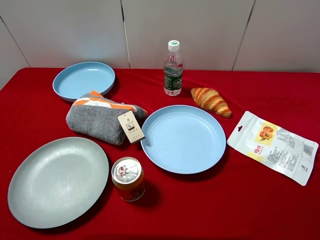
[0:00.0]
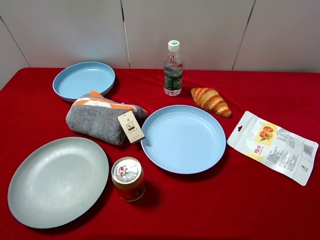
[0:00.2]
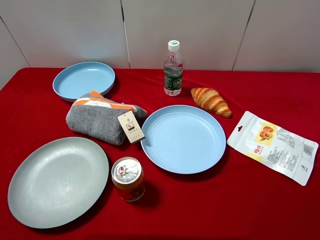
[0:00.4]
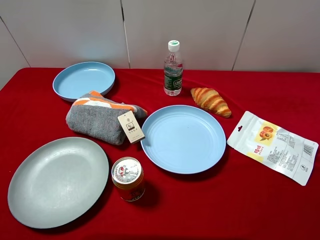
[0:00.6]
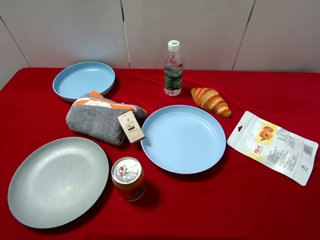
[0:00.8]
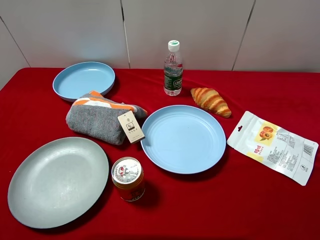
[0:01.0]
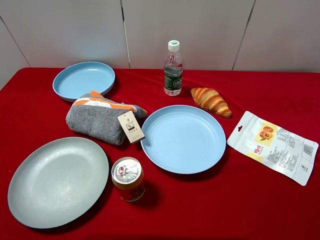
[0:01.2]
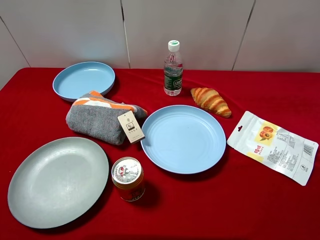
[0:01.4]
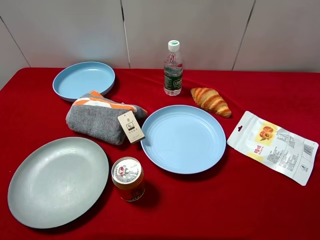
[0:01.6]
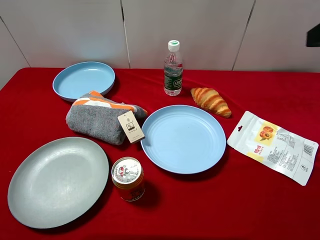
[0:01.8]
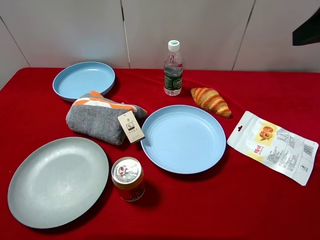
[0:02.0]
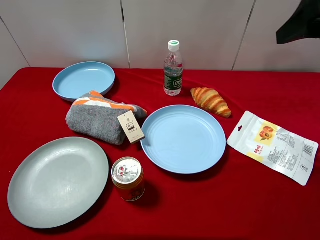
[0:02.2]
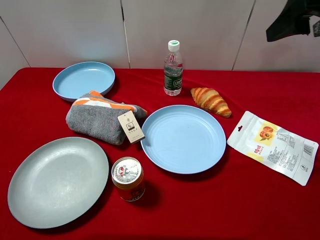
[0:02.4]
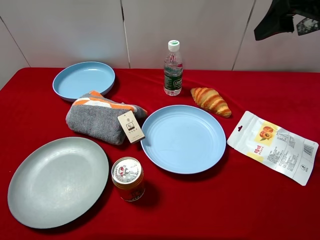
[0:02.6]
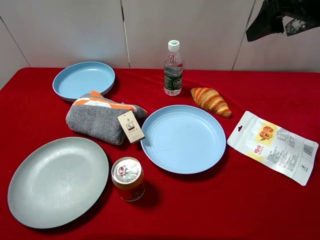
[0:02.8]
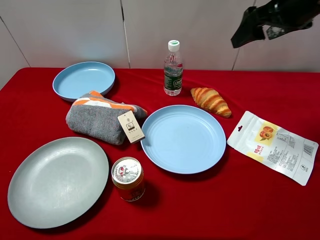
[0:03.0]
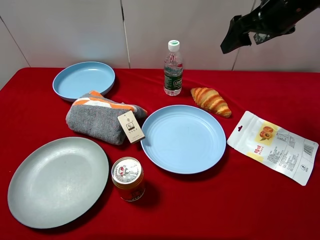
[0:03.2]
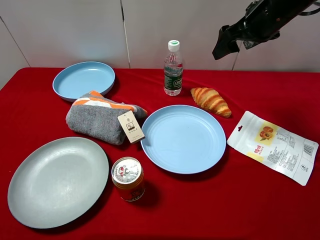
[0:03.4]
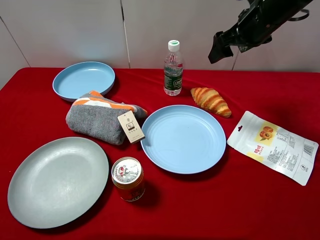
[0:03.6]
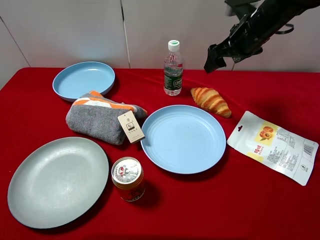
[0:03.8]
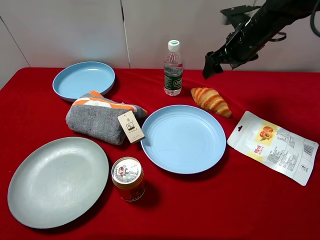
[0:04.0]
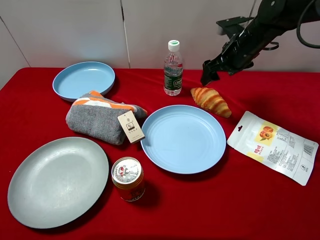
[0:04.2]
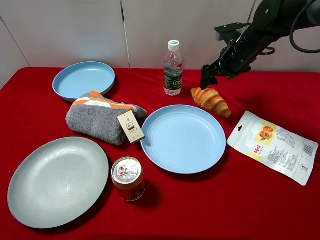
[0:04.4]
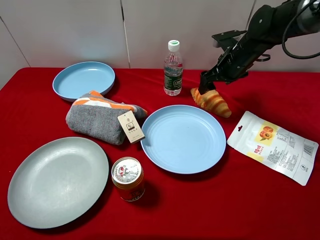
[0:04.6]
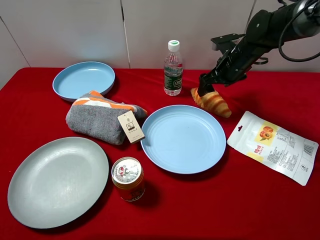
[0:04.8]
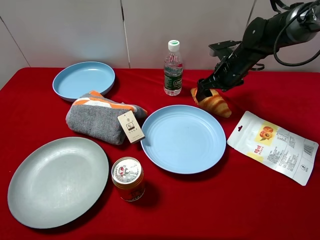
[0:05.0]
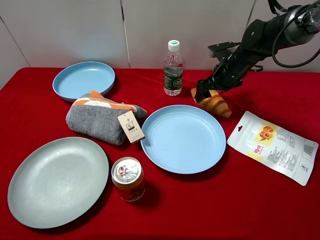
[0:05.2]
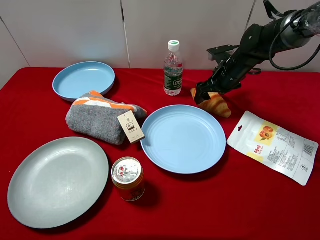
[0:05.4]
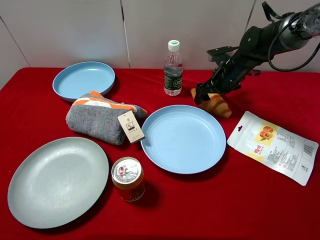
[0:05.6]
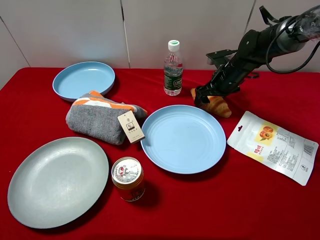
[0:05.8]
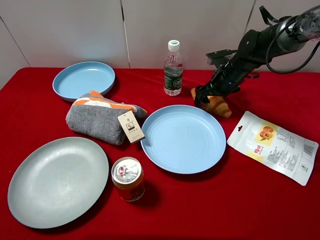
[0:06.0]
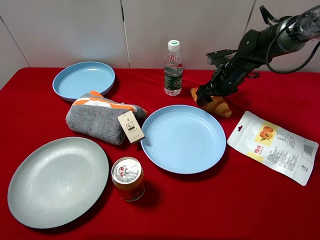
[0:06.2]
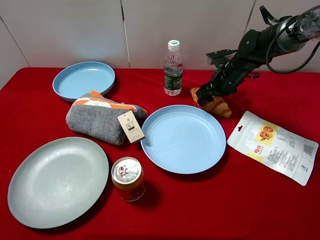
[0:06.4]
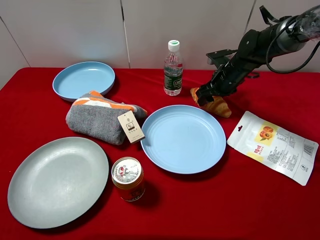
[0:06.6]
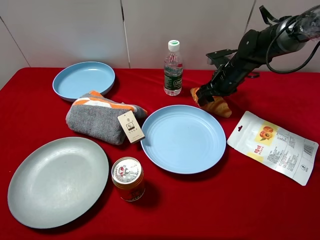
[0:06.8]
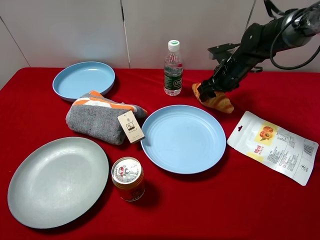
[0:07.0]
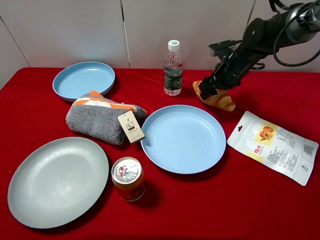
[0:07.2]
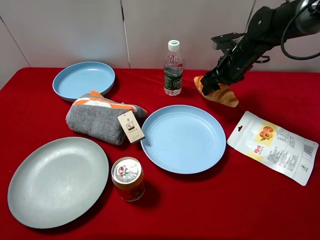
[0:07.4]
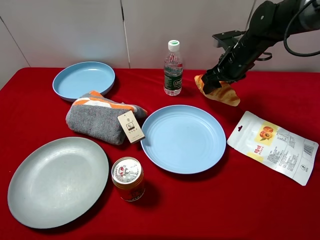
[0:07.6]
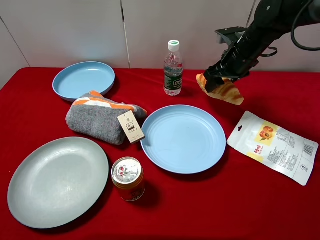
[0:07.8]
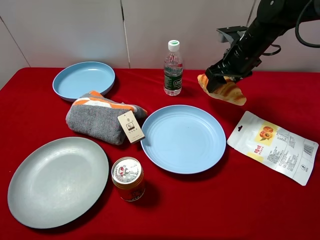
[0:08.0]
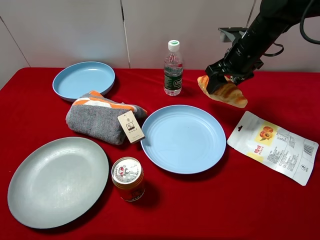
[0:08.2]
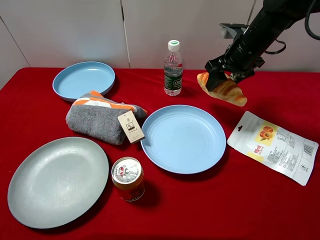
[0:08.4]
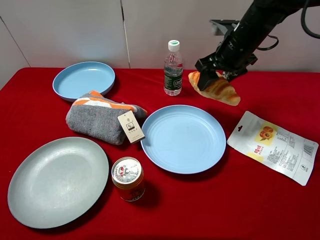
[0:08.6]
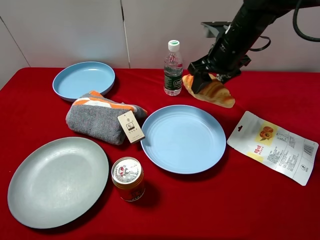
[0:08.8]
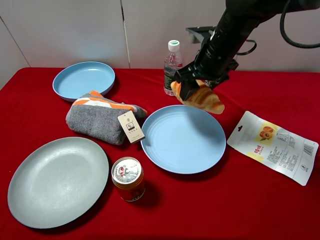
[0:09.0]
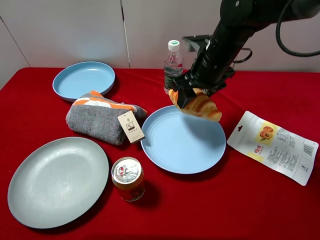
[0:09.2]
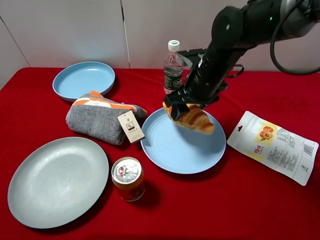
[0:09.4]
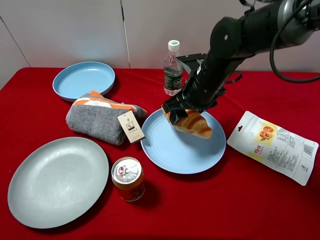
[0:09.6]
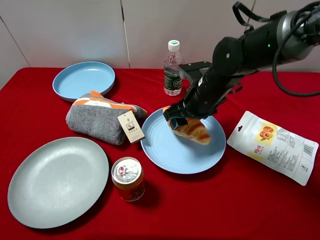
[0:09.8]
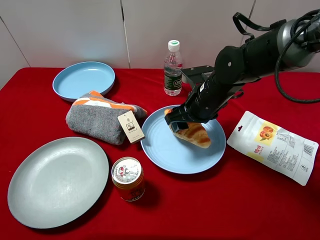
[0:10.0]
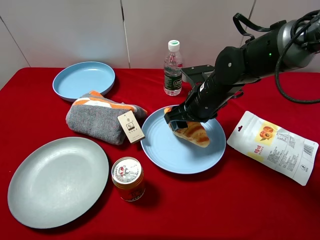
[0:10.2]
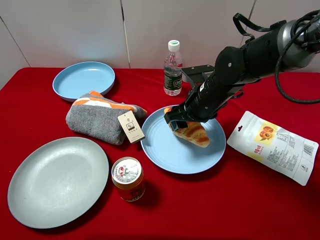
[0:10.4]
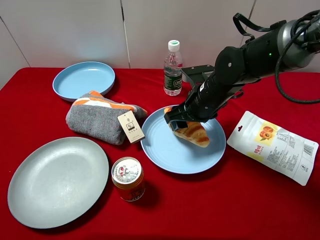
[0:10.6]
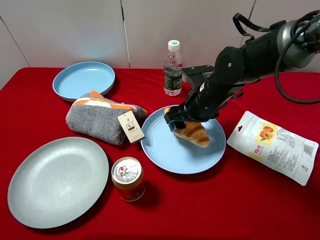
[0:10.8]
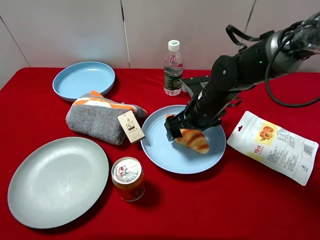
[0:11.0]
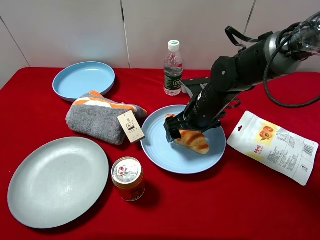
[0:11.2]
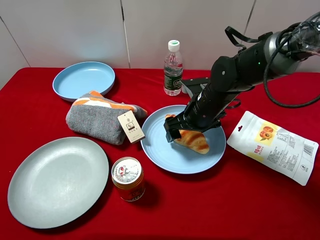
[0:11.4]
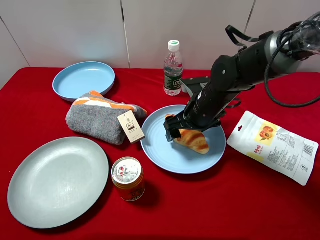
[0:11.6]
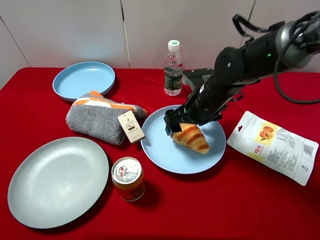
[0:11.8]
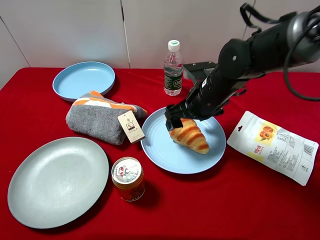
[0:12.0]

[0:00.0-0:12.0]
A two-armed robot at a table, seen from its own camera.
Task of the whole recording: pick up an item with a gripper and place it in a random container on the desktop.
0:01.6 to 0:03.0: The right gripper is displaced forward by approximately 20 cm.
0:03.0 to 0:04.4: The right gripper is displaced downward and forward by some 15 cm.
0:04.4 to 0:06.0: The right gripper shifts about 5 cm downward.
0:06.0 to 0:07.6: The right gripper shifts approximately 5 cm upward, and closes.
0:07.6 to 0:09.0: The right gripper heads to the left and backward, covering roughly 10 cm.
0:09.0 to 0:10.4: The right gripper shifts about 10 cm downward.
0:10.4 to 0:12.0: The right gripper opens.

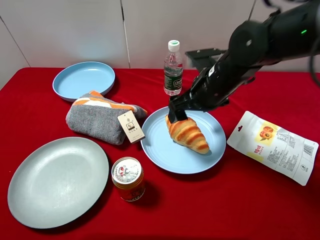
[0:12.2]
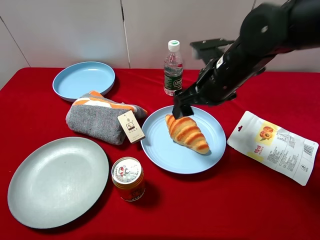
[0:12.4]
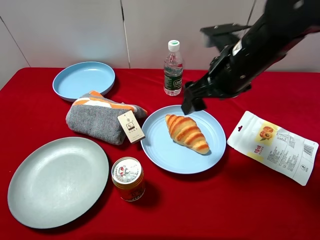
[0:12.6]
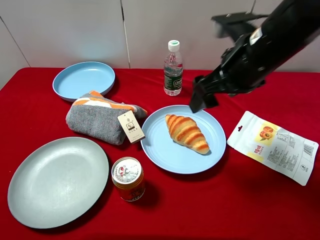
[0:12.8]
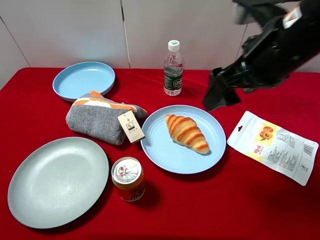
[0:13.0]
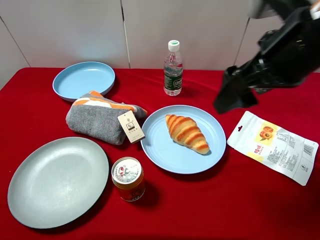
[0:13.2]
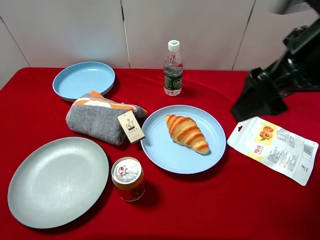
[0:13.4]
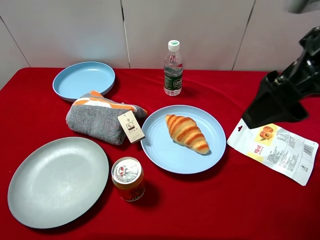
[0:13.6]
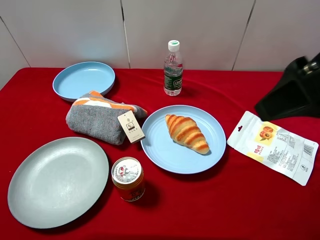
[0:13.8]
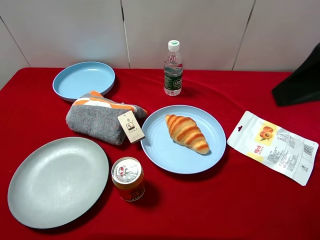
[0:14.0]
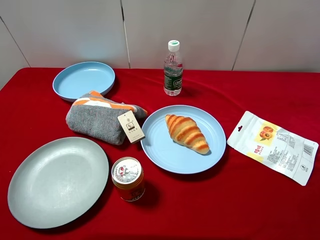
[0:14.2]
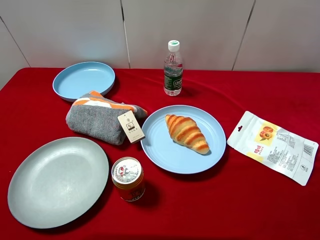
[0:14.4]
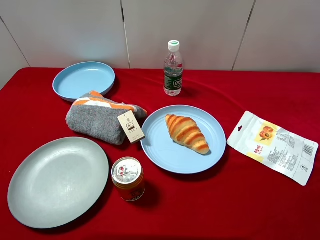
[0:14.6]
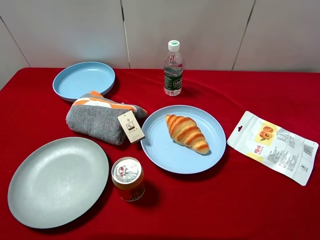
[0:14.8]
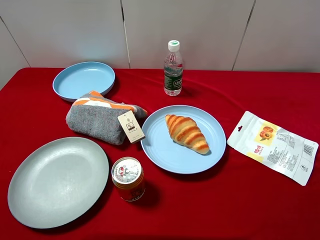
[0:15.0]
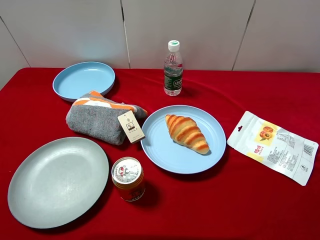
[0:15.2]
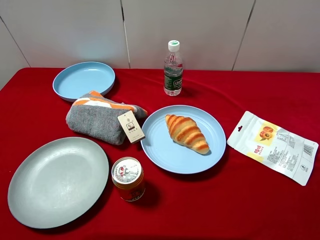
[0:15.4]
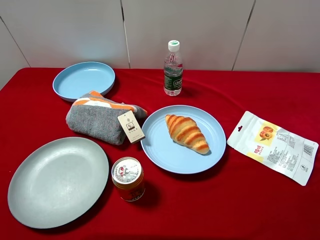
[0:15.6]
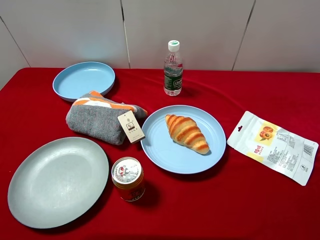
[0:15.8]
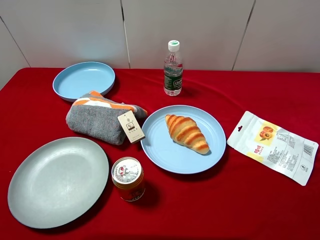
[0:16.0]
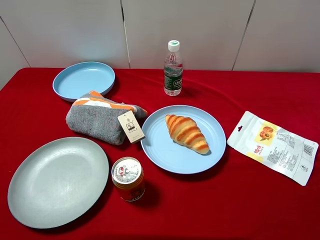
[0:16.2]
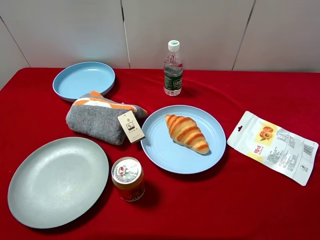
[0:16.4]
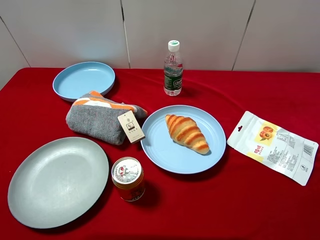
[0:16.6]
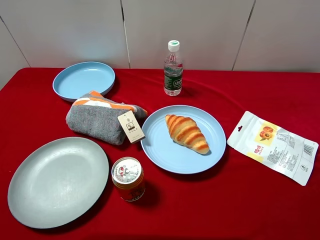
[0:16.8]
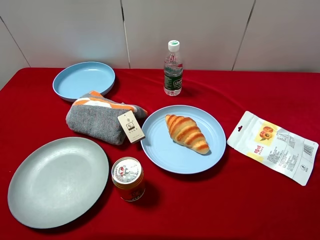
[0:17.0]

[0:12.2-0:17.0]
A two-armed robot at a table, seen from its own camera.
Task of the whole recording: pick up an item with a gripper and place it in a random container on the desktop.
0:12.2 to 0:13.8: The right gripper shifts roughly 25 cm upward, backward and to the right.
0:13.8 to 0:15.4: The right gripper is displaced backward, to the right and downward by roughly 15 cm.

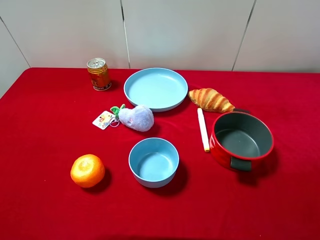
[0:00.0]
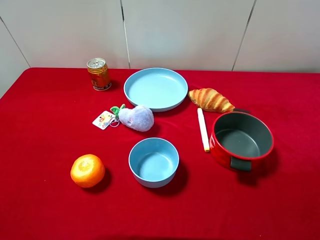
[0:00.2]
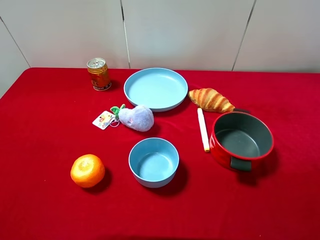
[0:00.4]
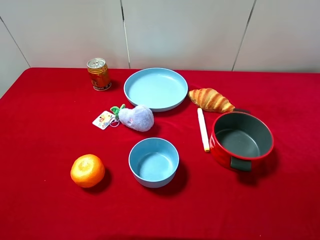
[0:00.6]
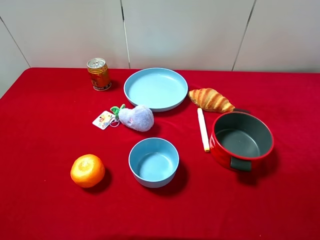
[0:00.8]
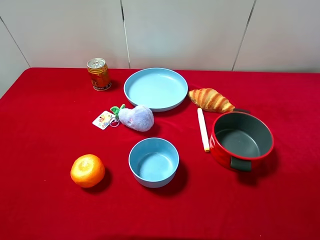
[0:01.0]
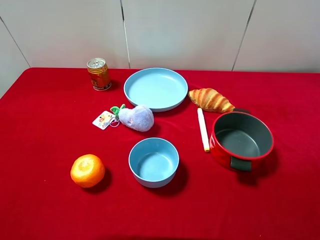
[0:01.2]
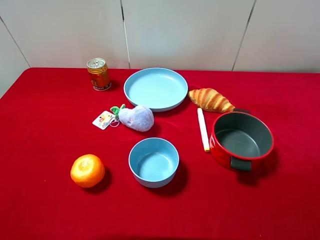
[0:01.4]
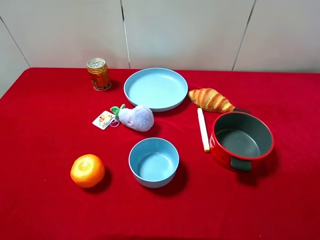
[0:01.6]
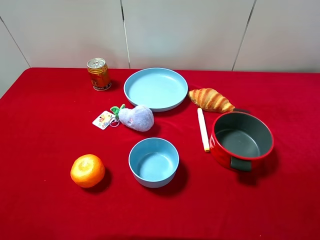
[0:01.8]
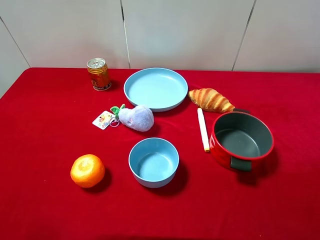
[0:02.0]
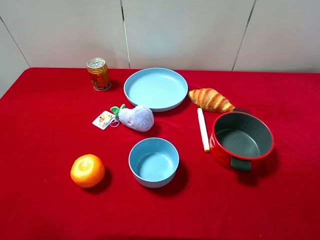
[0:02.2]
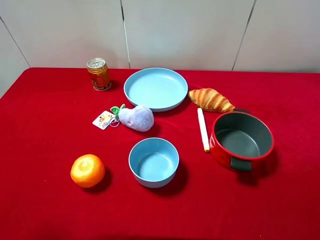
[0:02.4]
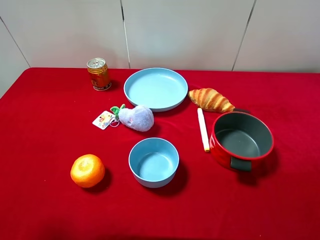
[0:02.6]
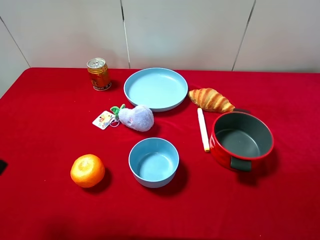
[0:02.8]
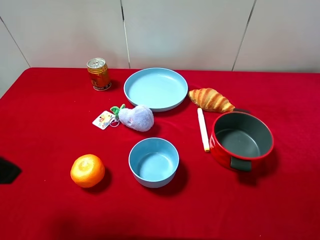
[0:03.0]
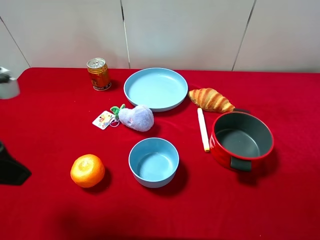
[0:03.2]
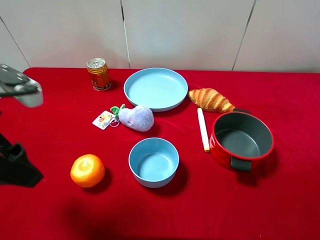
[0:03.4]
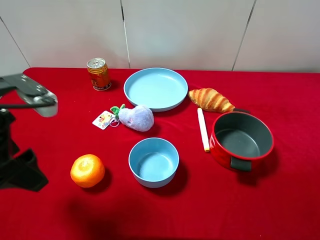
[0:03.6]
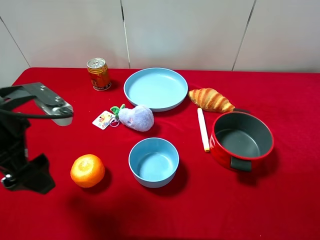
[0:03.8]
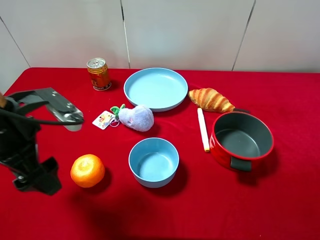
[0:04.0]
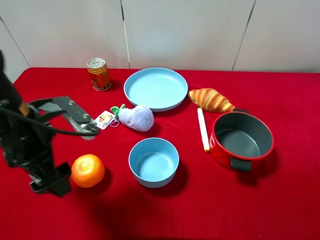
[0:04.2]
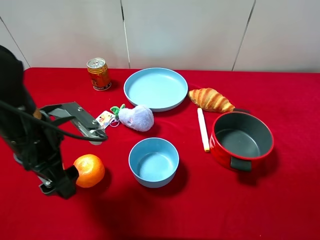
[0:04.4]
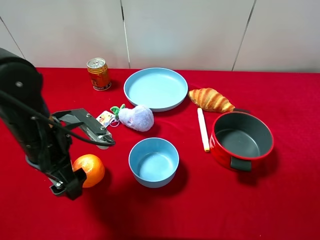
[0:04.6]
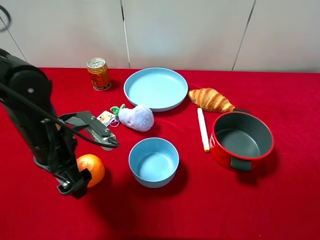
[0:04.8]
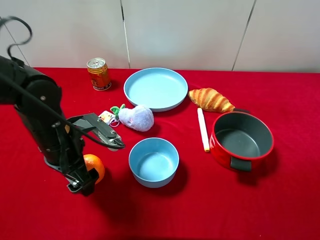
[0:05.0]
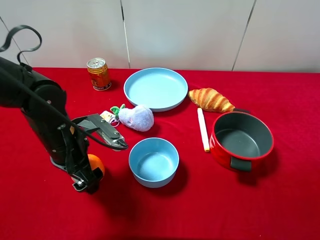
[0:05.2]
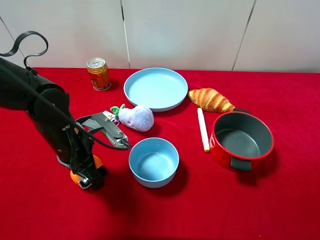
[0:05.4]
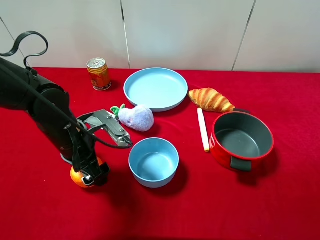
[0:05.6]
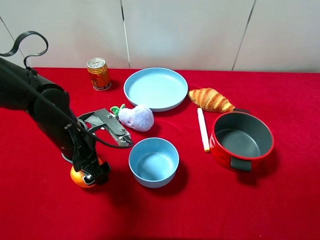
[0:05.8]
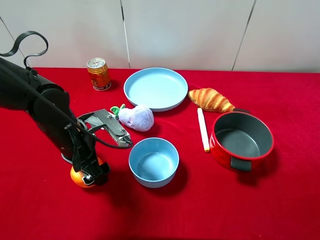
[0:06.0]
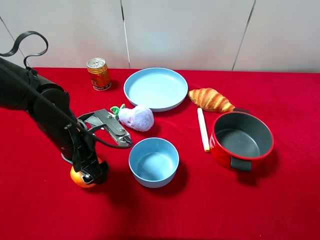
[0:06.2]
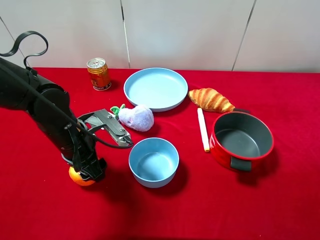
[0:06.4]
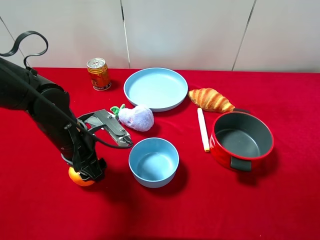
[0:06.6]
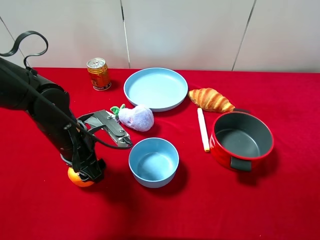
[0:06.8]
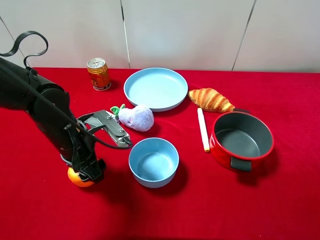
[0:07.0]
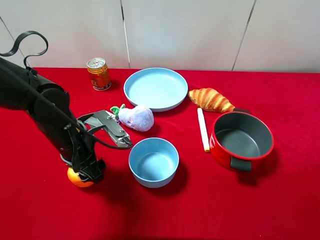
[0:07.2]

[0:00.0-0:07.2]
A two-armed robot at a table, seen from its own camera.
Task of the whole recording: pick up an item with a gripper and place it in a random container on the desktop.
0:02.8 to 0:04.4: The left gripper moves downward, to the right and forward, some 15 cm.
0:04.4 to 0:05.8: The left gripper travels downward by approximately 5 cm.
0:05.8 to 0:07.2: The left gripper closes.
